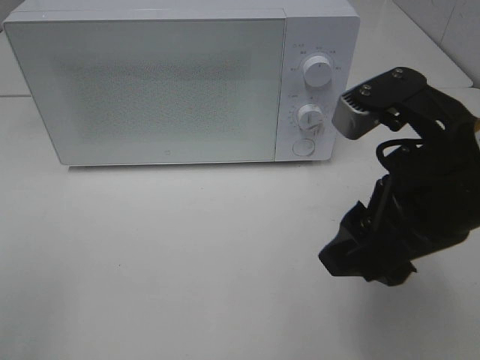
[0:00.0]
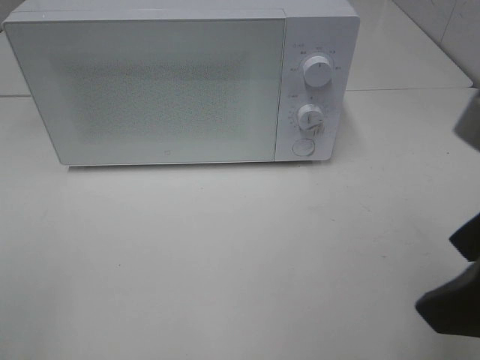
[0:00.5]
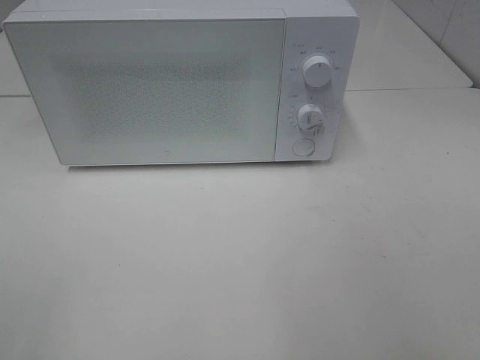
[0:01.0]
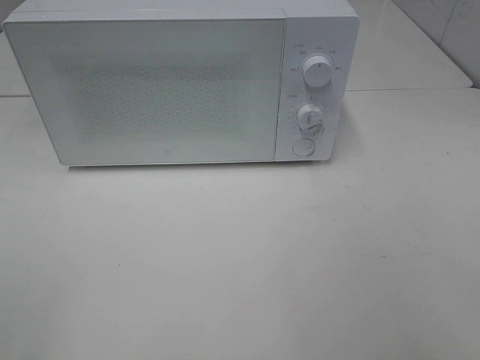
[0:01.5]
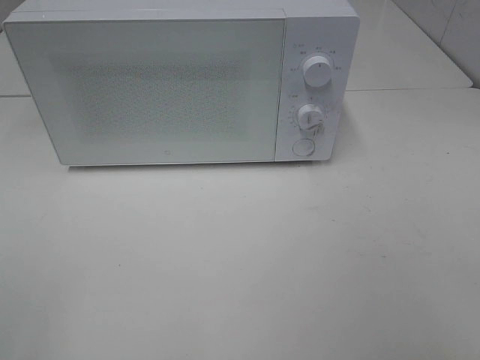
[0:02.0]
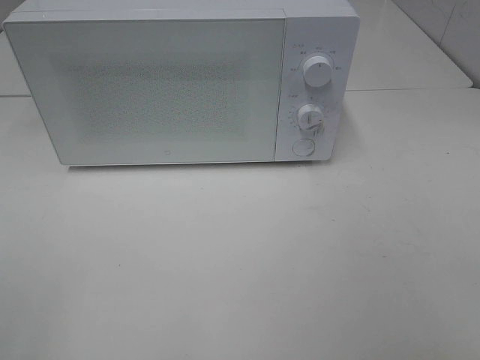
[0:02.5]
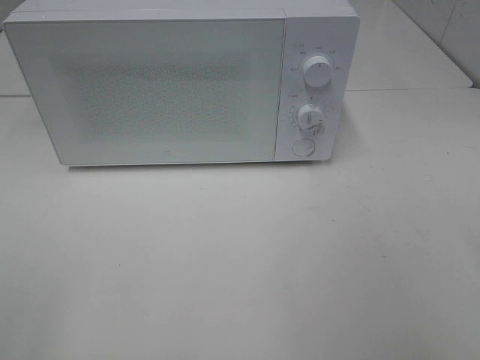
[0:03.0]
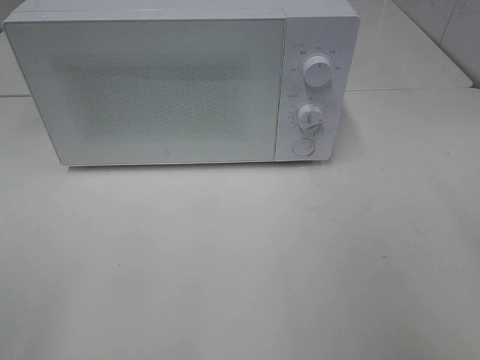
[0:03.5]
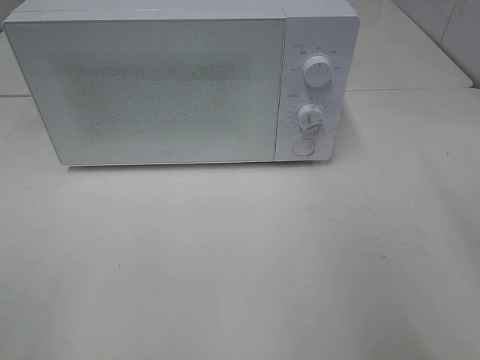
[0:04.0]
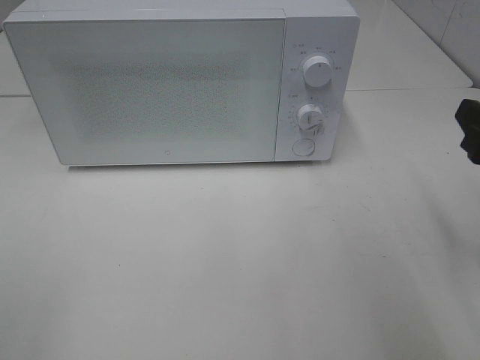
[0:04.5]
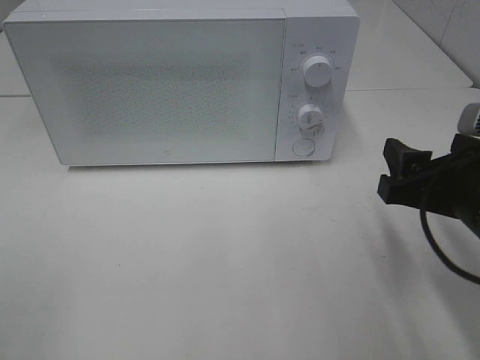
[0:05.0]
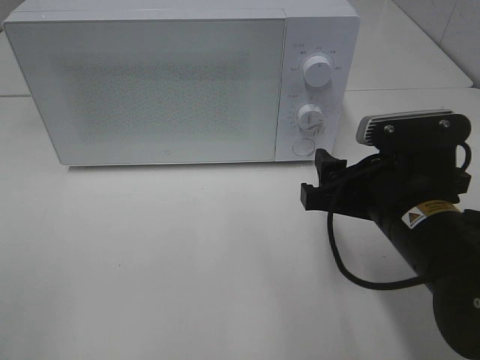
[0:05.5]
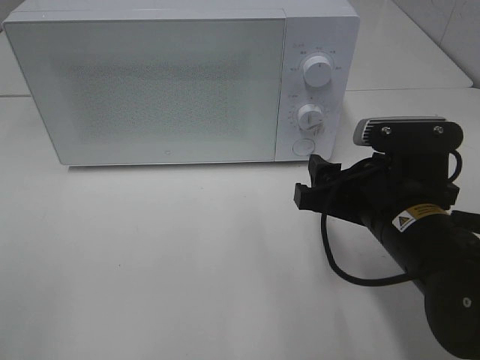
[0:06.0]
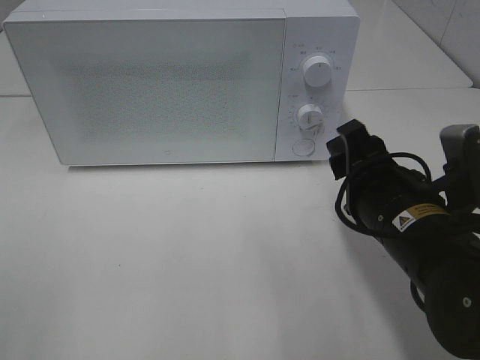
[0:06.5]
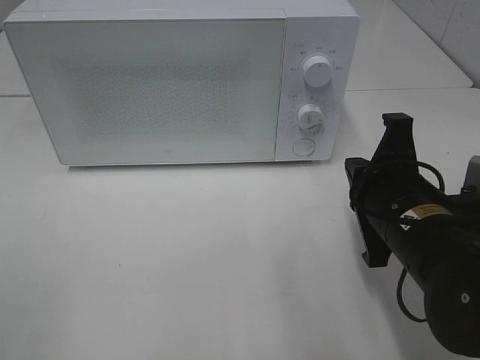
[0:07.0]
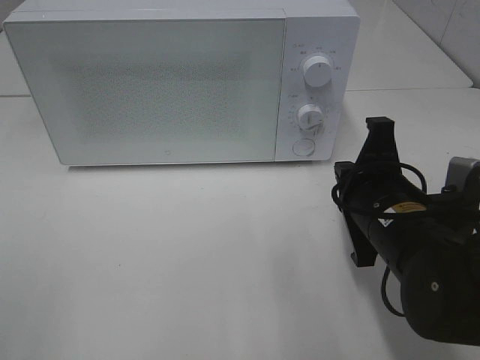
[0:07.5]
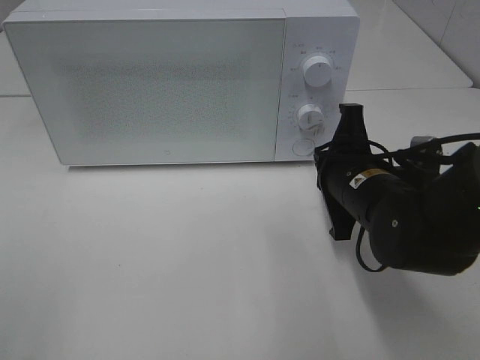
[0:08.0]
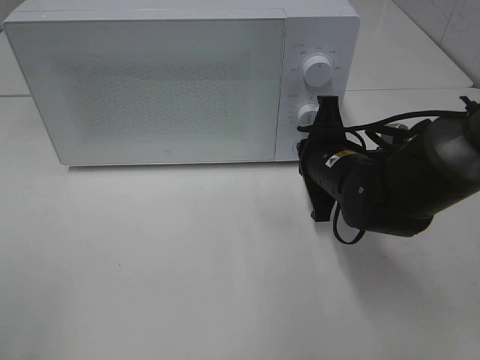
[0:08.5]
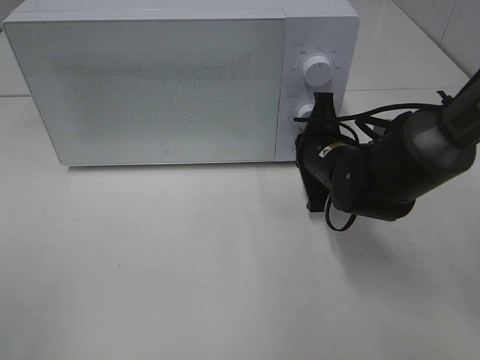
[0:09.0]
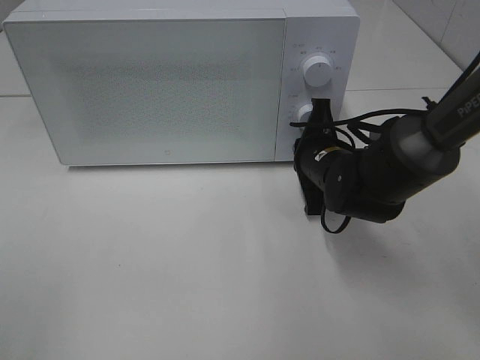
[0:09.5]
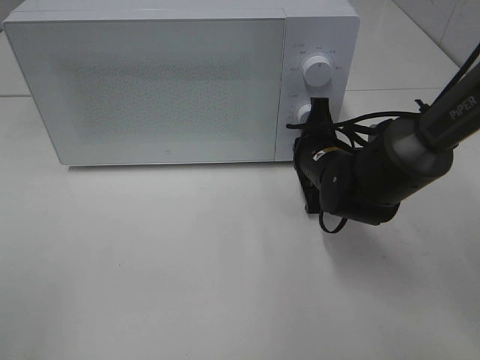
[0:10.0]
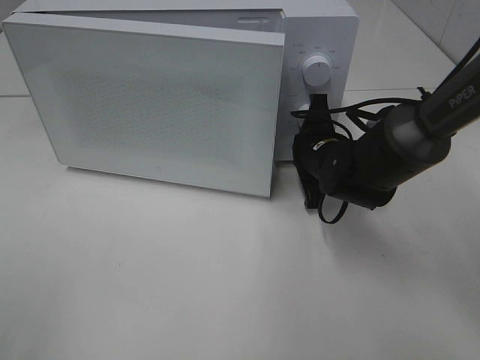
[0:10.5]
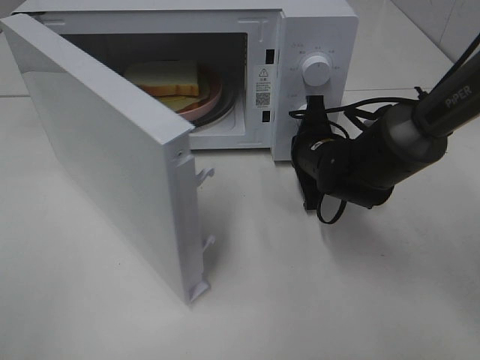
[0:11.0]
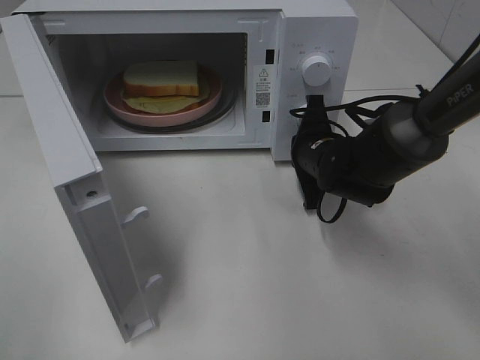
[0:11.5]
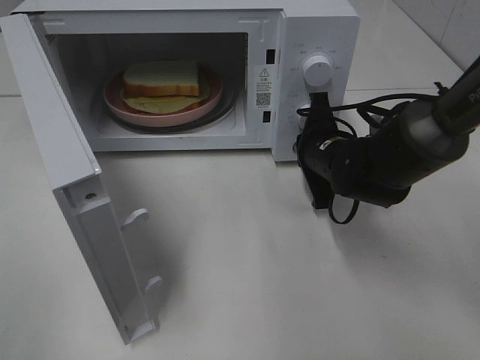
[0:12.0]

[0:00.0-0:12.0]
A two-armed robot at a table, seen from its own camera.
Task of the whole recording: Heat Sandwich.
0:00.0 to 0:02.0: The right gripper is displaced backward and to the right by approximately 20 cm.
0:04.0 to 0:06.0: The right gripper is displaced downward and to the left by about 20 cm.
0:06.0 to 0:08.0: The right gripper shifts some 5 cm forward, and closes up.
0:08.0 to 0:10.0: The right gripper travels forward by about 10 cm.

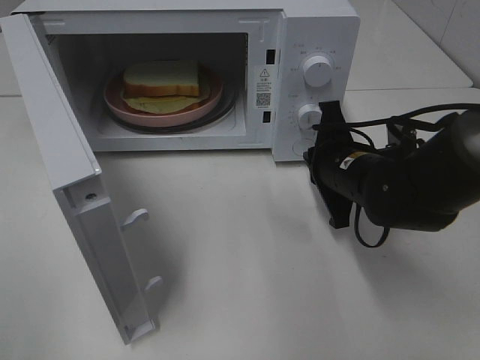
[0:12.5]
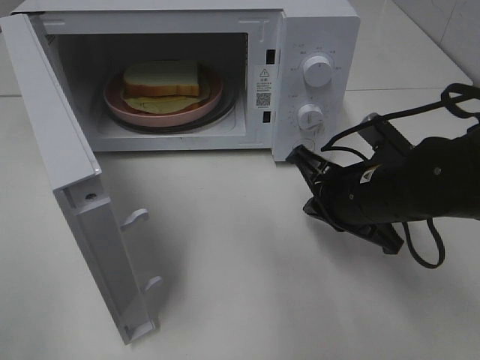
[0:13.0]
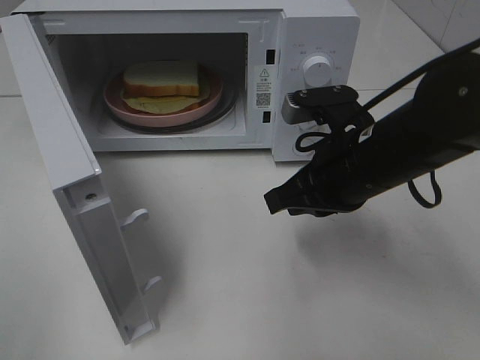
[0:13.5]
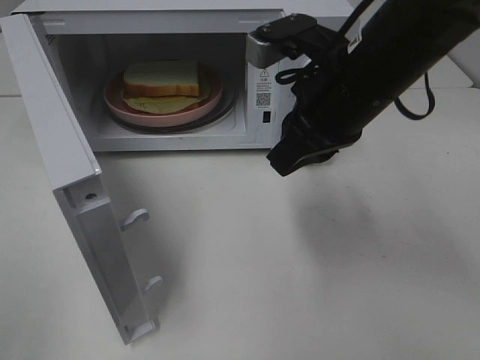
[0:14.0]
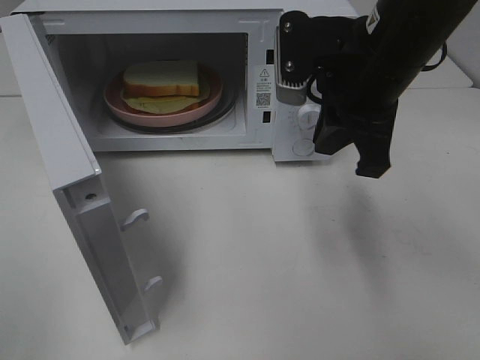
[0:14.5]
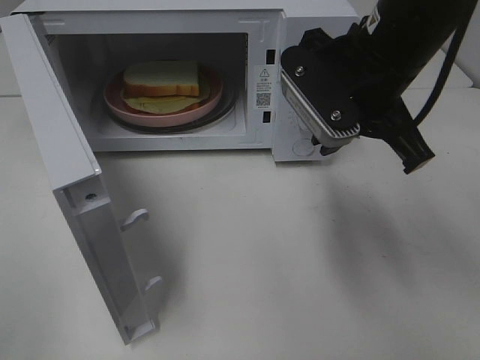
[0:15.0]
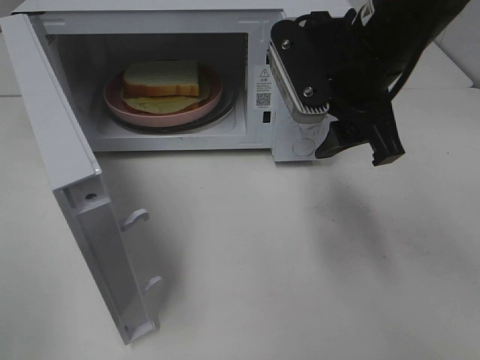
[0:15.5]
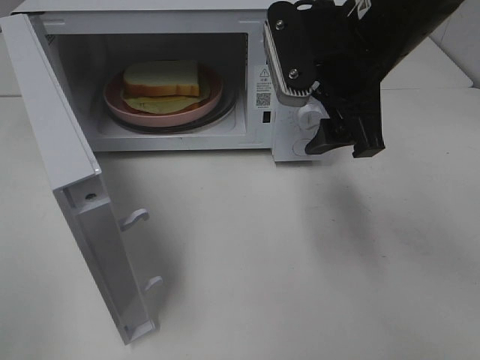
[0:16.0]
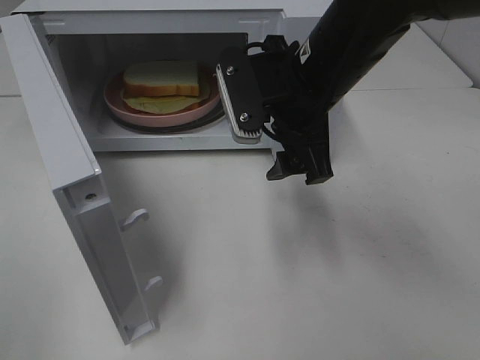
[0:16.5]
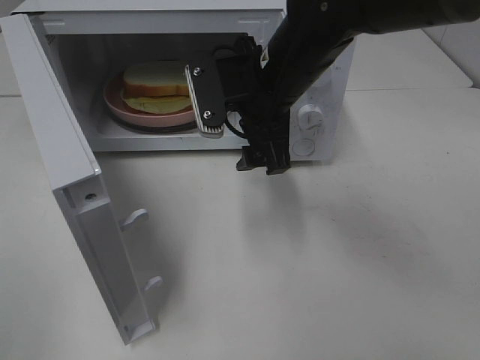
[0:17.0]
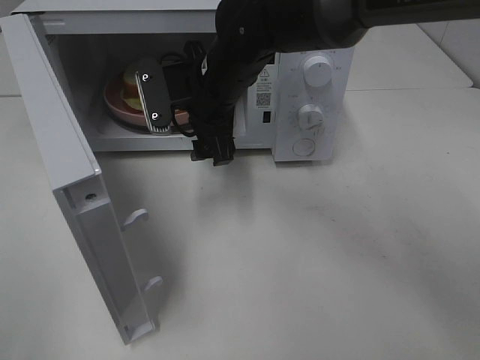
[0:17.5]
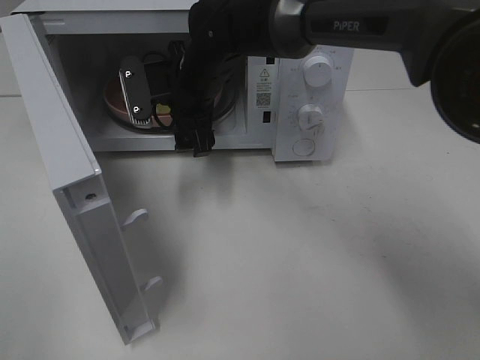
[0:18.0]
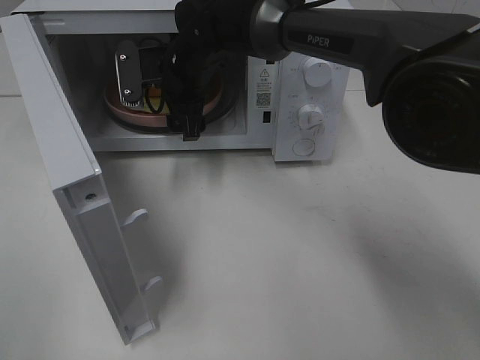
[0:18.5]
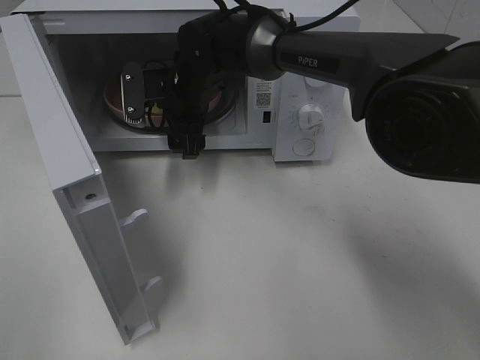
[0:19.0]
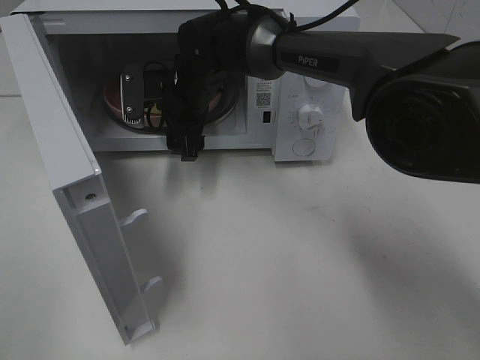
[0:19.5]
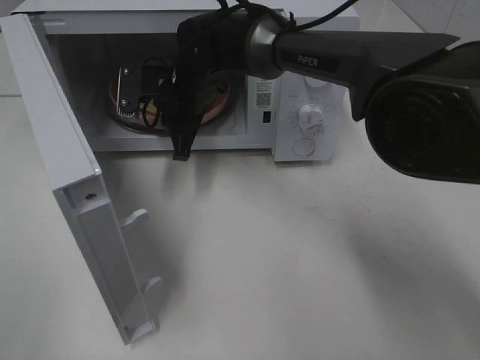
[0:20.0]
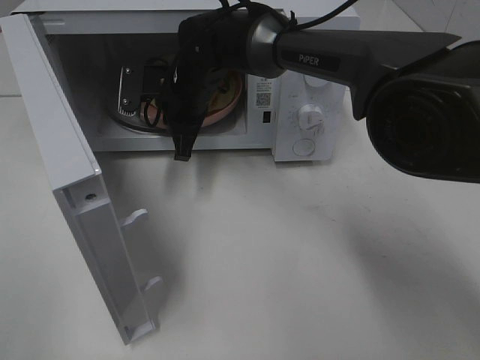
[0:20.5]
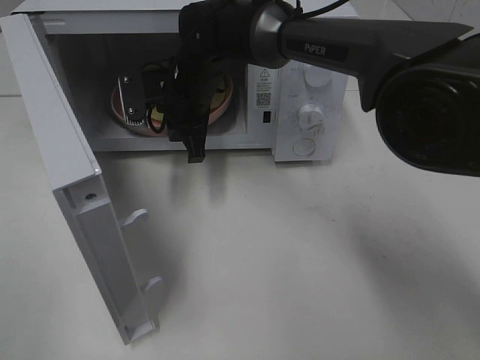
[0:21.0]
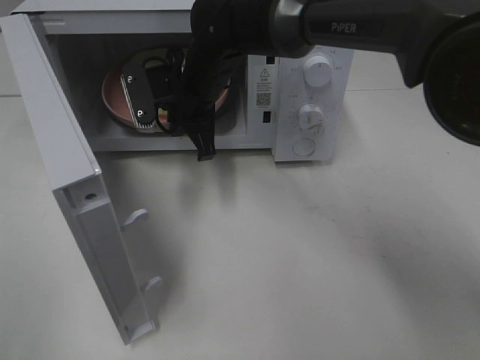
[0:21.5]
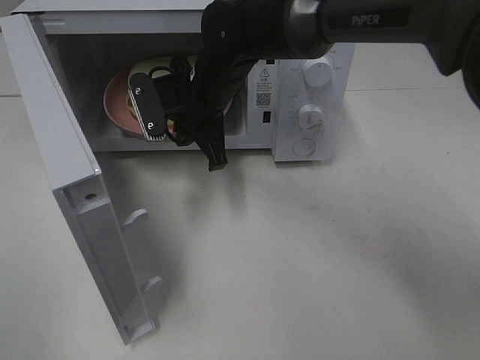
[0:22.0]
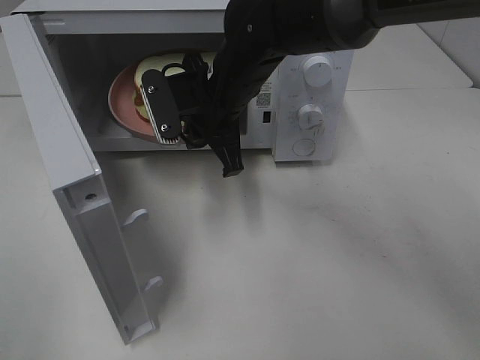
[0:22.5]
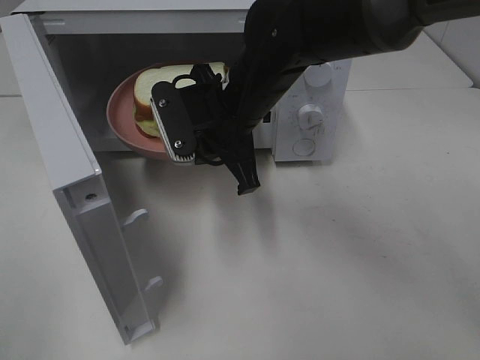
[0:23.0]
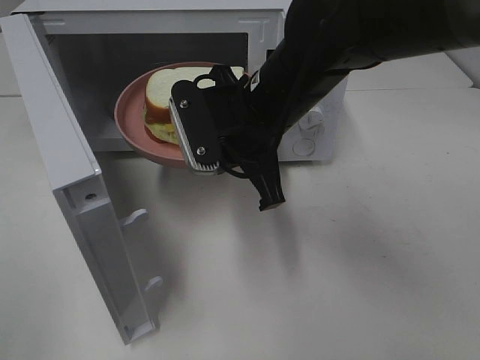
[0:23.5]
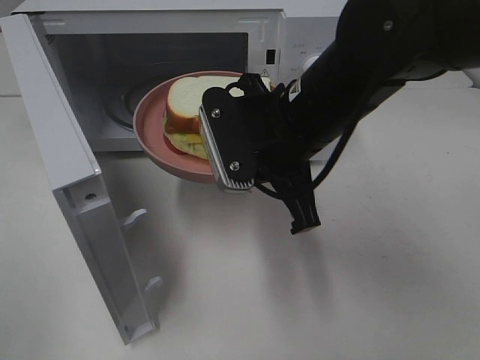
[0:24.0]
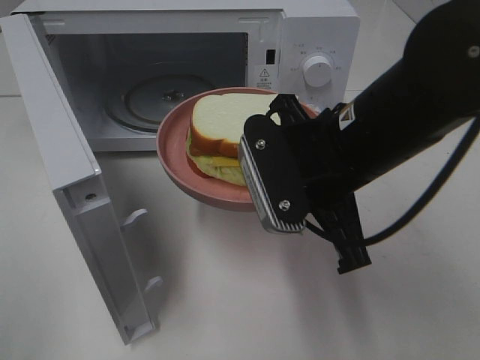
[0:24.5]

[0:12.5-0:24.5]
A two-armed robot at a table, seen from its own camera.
Task of the whole recording: Heat Sandwich.
Step, 0:12.5 to 0:20.0: Right hand: grab the plate with the sandwich.
0:12.5 to 0:14.5: The right gripper goes roughly 15 cm upward.
0:14.5 to 0:16.5: The right gripper ends up some 5 cm from where it was, and opens.
0:16.5 to 0:18.5: The right gripper is displaced forward, to the left and downward by about 20 cm.
0:18.5 to 0:20.5: The right gripper closes.
0:20.5 to 0:22.5: The right gripper is displaced backward by some 5 cm.
0:22.5 to 0:24.5: The right gripper moves backward and to the right, approximately 15 cm.

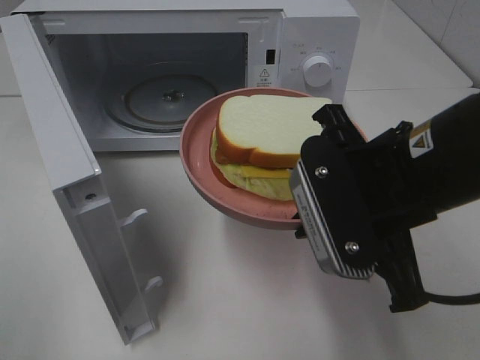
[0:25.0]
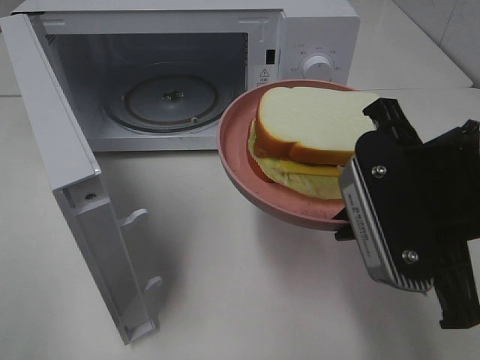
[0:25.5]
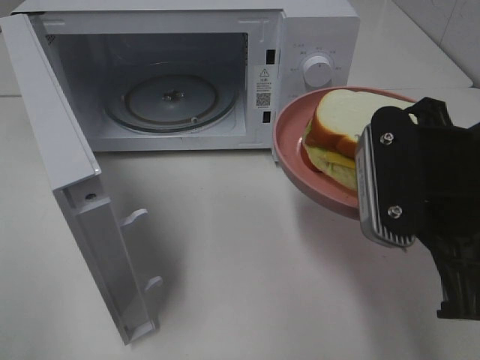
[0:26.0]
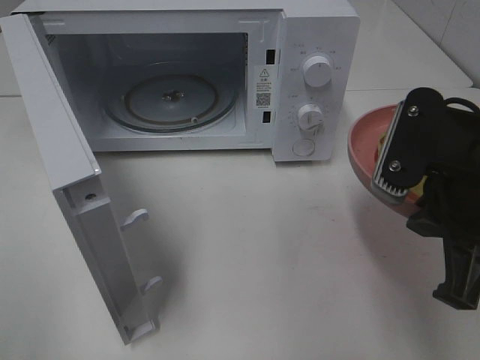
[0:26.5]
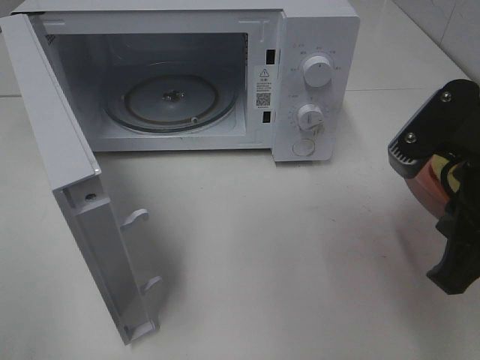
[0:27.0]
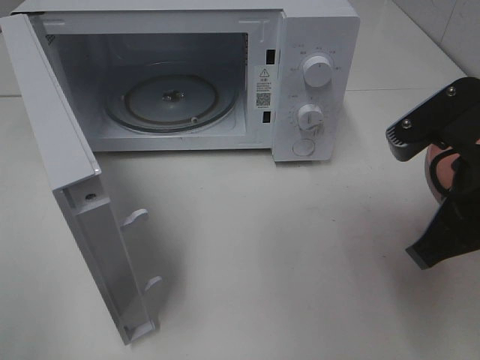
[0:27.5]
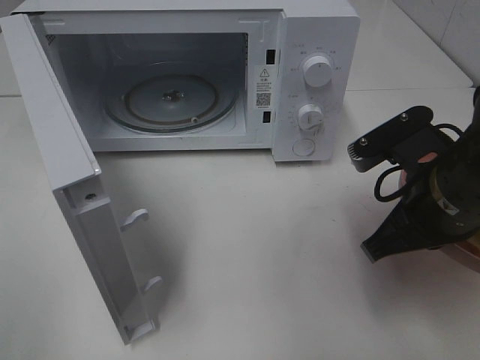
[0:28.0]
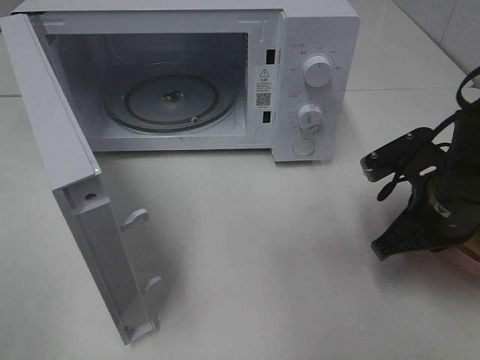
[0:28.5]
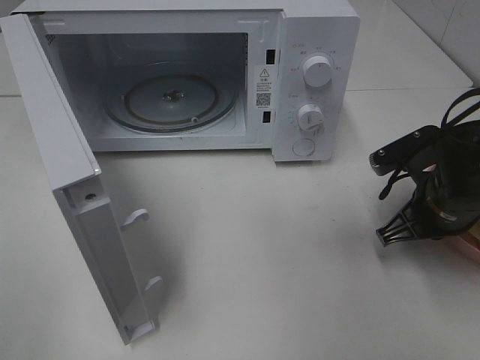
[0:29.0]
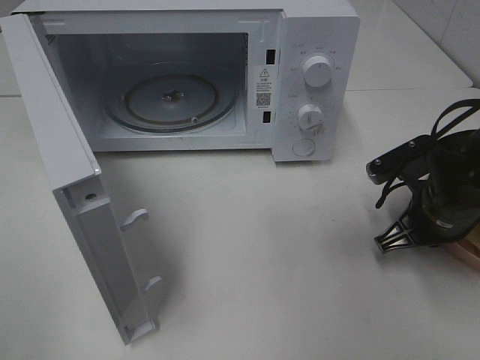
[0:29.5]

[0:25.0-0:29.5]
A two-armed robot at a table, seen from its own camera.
Task of the whole recording: Heat Sandwich.
0:25.0 to 0:27.0: The right gripper goes about 5 cm to the right.
0:27.0 to 0:29.5: The right gripper moves downward and forward, some 20 cm.
